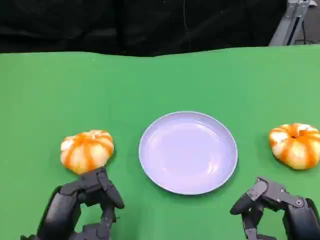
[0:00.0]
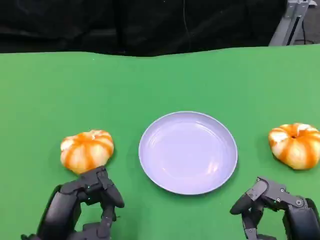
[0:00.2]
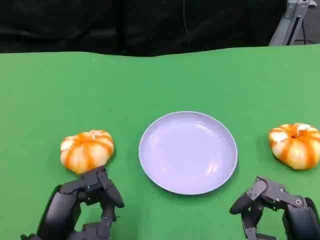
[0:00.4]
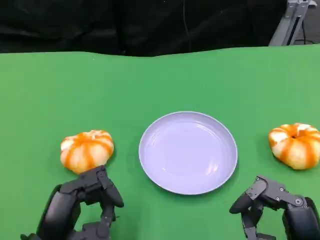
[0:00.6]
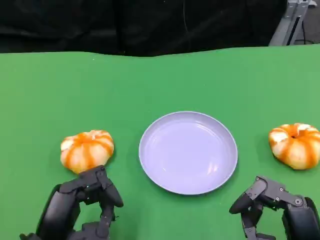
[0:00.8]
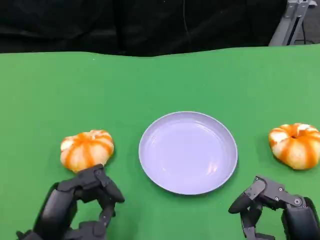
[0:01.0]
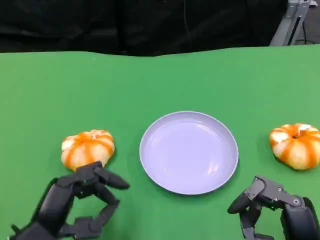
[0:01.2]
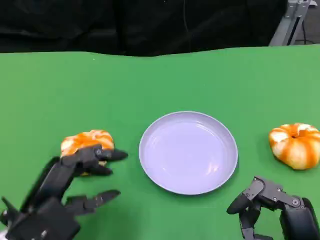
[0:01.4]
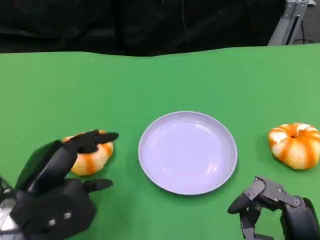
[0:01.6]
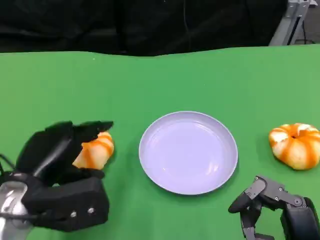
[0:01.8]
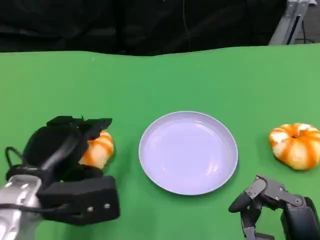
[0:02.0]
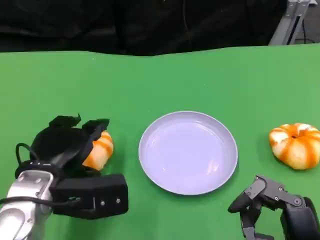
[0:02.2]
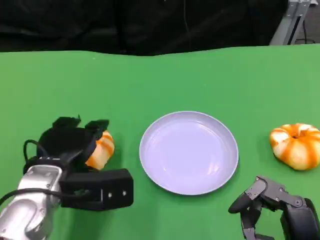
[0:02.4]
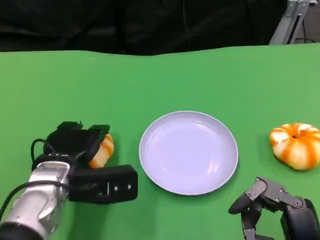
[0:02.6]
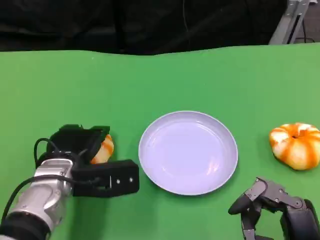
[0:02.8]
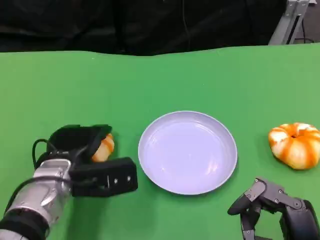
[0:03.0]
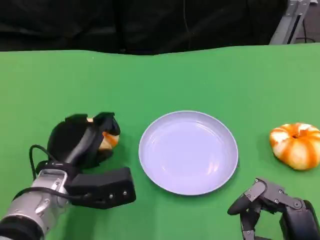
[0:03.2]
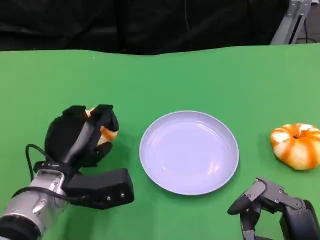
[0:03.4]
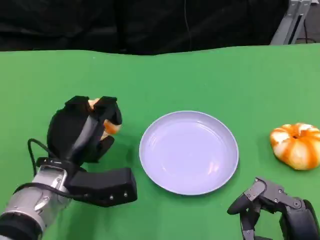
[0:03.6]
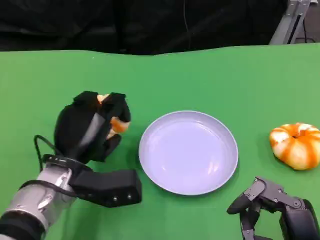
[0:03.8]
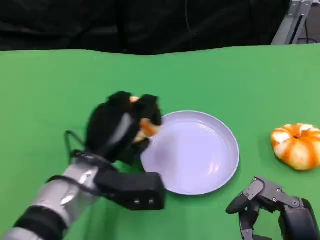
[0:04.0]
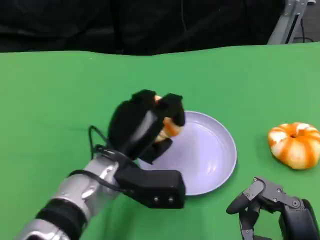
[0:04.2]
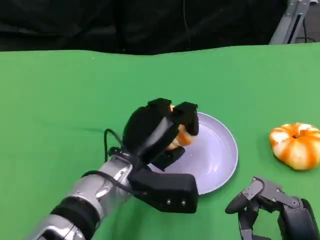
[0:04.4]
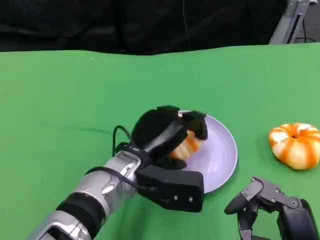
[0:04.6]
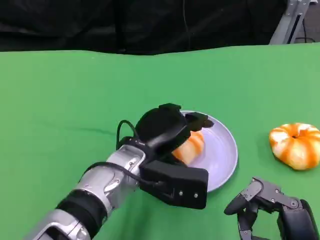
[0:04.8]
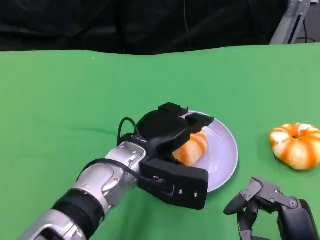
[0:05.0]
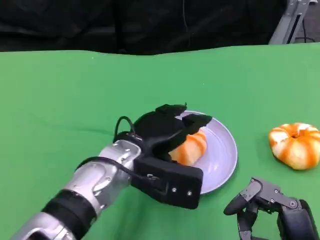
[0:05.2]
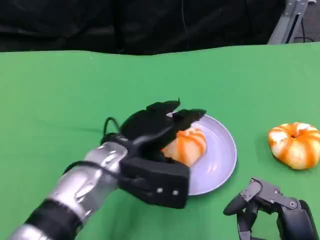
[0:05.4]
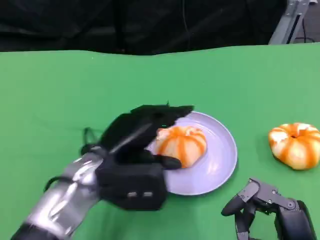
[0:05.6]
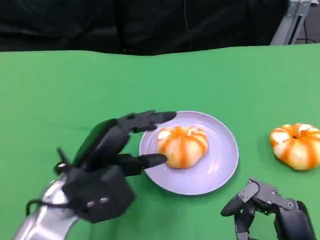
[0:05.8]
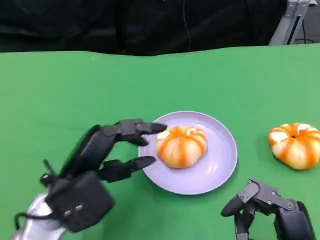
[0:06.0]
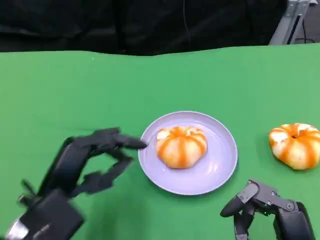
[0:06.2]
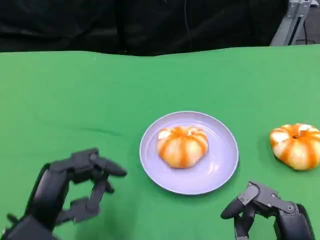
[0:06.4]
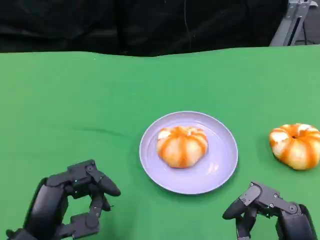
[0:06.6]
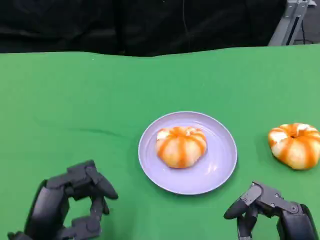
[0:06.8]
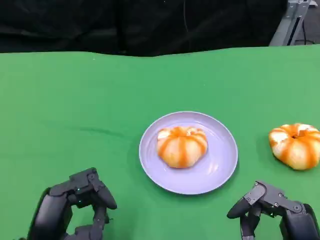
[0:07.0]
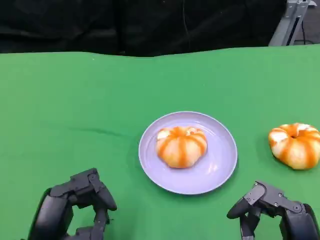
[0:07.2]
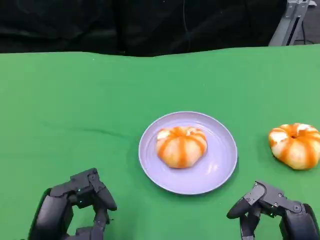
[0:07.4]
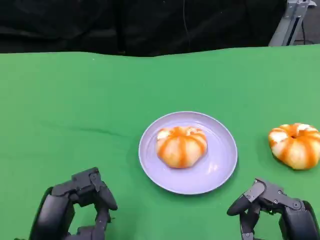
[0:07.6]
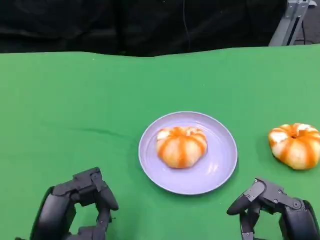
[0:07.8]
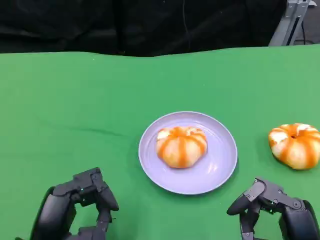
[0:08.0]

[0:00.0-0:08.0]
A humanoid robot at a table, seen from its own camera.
Task of the whole recording: Grasp the bread from the table and place it into the plate.
0:00.0 to 0:01.6: The left hand is displaced forward and upward by some 10 cm.
0:01.6 to 0:03.2: The left hand goes some 10 cm forward and downward.
0:03.2 to 0:04.8: The left hand is displaced to the right by about 10 cm.
0:04.8 to 0:06.4: The left hand is displaced to the left and backward by roughly 20 cm.
0:06.4 to 0:08.0: The hands move only a little.

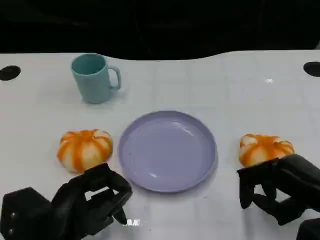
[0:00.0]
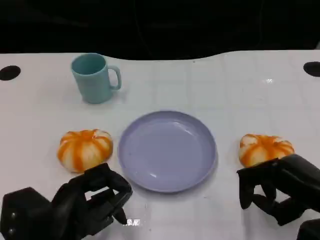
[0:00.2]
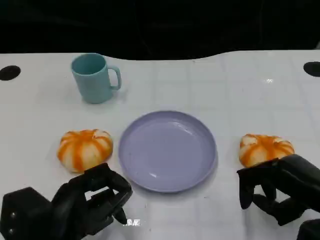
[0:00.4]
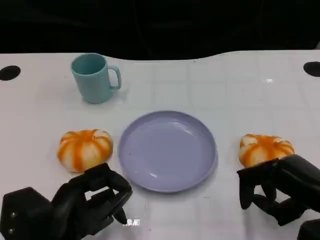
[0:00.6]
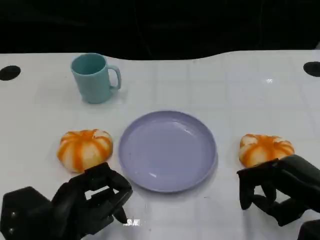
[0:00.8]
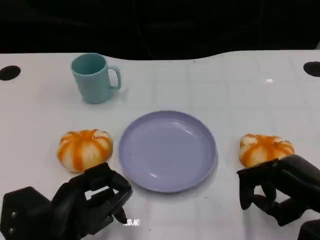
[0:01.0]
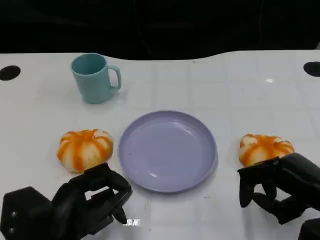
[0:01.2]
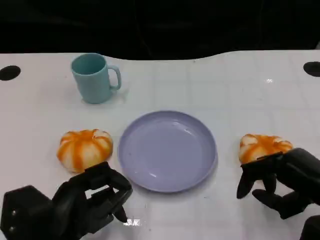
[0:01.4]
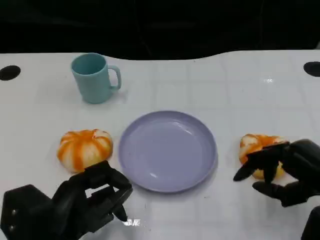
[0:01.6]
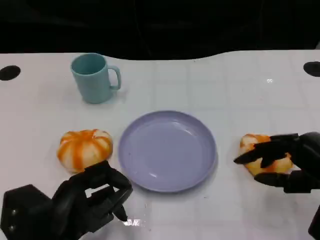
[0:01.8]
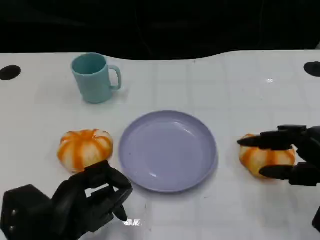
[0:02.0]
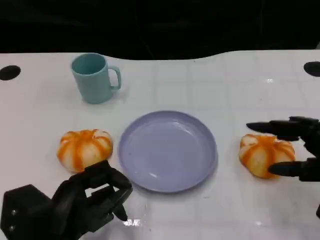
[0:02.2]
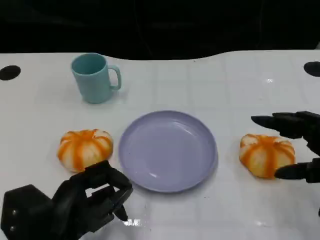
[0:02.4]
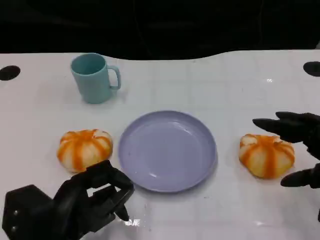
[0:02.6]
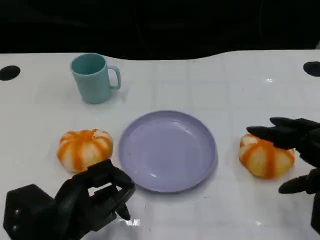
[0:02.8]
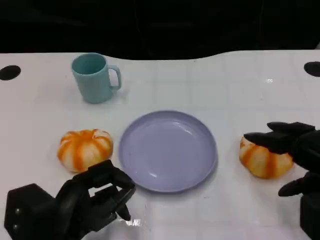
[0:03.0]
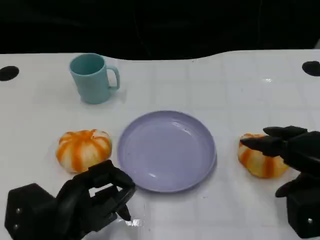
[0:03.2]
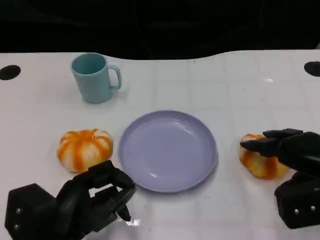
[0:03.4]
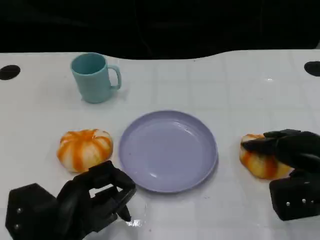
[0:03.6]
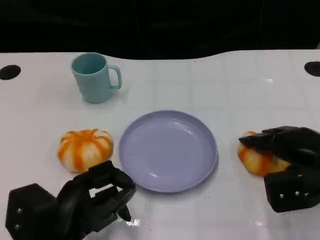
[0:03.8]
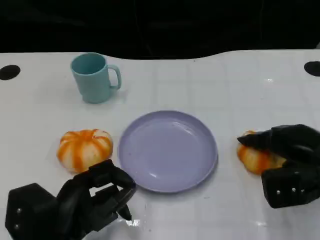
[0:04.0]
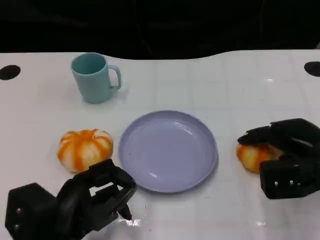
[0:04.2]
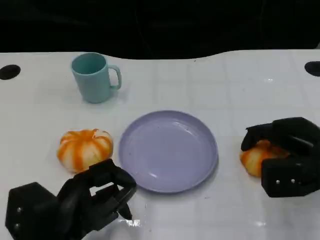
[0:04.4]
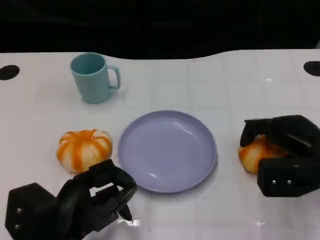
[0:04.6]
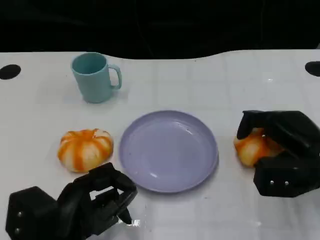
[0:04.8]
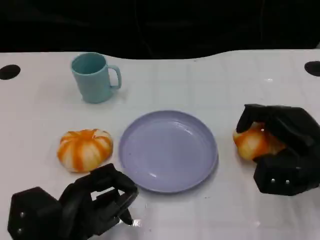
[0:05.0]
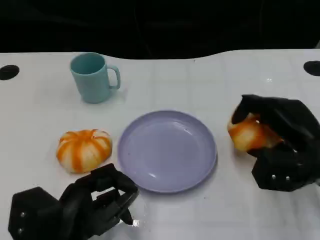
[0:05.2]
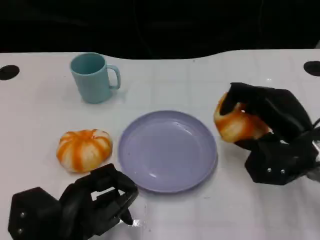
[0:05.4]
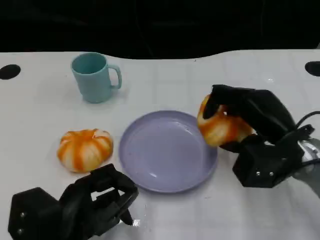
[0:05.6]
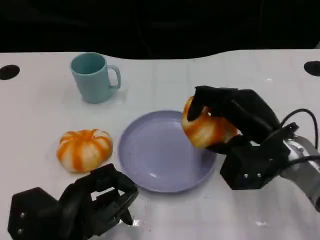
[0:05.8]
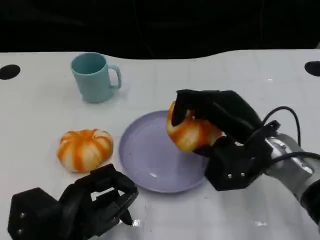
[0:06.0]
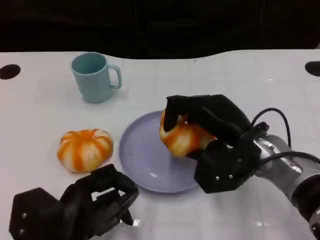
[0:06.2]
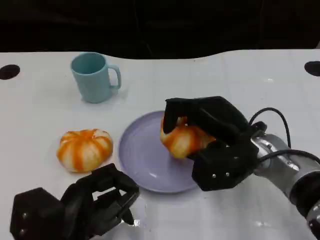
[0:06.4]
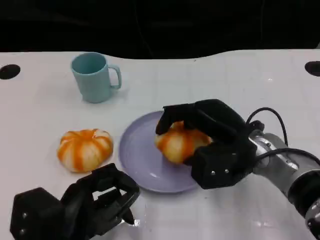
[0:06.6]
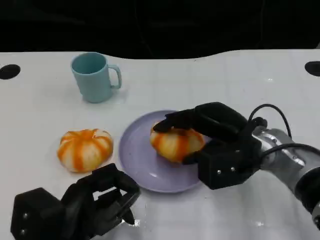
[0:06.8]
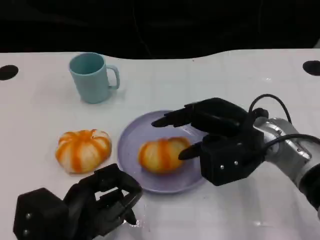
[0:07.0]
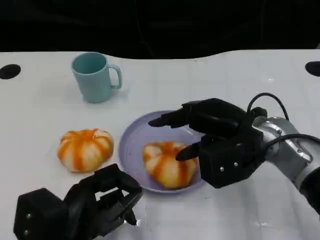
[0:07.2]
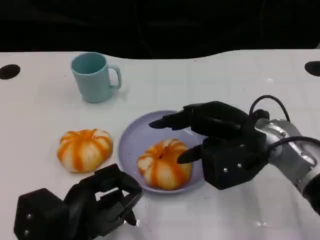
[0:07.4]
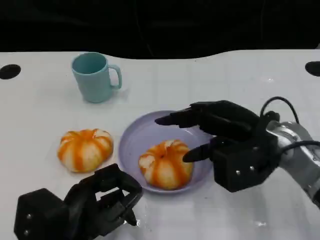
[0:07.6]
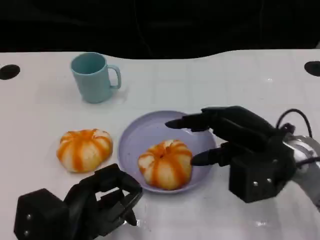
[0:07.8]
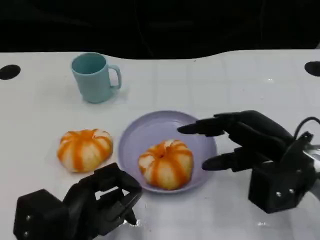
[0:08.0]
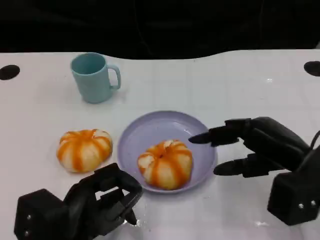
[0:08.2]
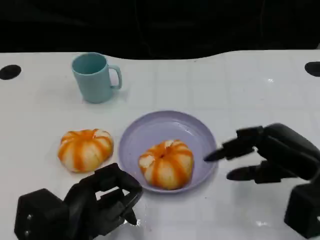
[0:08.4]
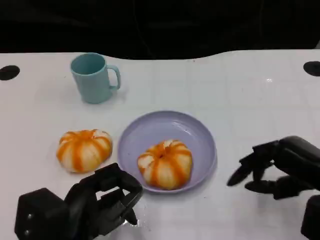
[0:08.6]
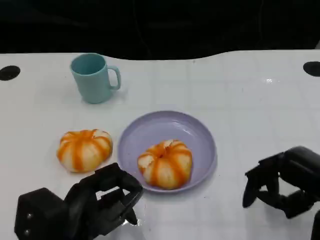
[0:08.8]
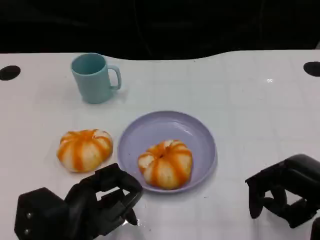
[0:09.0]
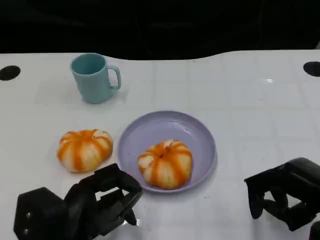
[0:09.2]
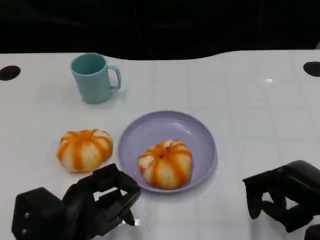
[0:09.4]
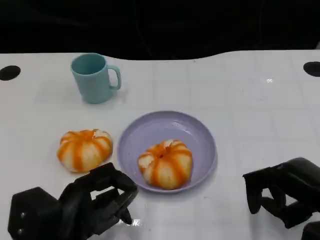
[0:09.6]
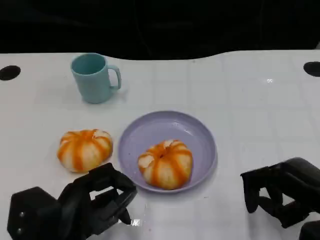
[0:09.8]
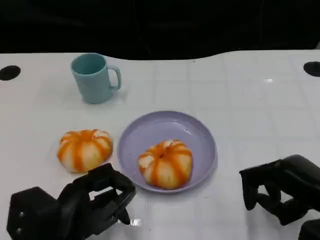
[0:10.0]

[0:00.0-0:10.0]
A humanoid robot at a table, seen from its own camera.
Task of the whole recording: Grasp the bread from the table and place it into the plate.
0:00.0 to 0:01.4: Both hands stay about where they are.
0:01.4 to 0:02.8: The right hand shifts by about 5 cm.
0:02.8 to 0:04.2: The right hand is displaced forward and downward by approximately 10 cm.
0:04.2 to 0:05.8: The right hand moves to the left, about 10 cm.
0:07.2 to 0:08.6: The right hand shifts about 15 cm to the right and backward.
0:08.6 to 0:10.0: The hands stay close to where they were, moving slightly.

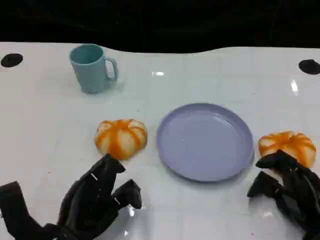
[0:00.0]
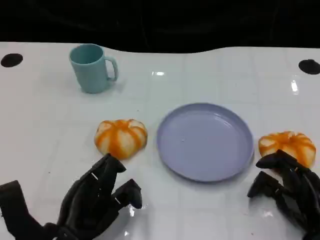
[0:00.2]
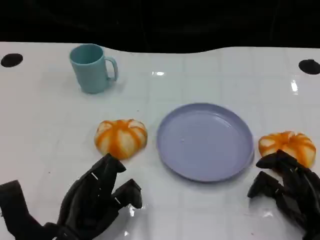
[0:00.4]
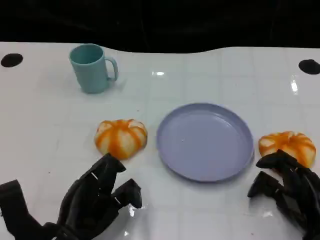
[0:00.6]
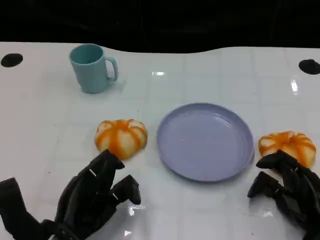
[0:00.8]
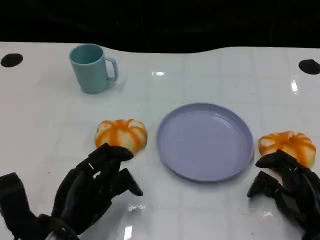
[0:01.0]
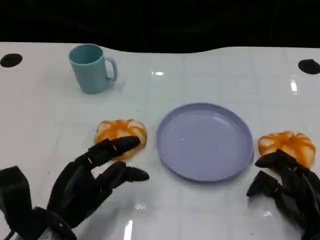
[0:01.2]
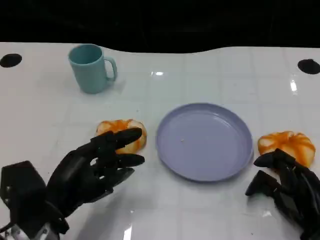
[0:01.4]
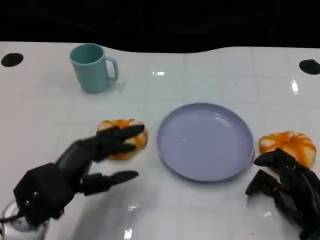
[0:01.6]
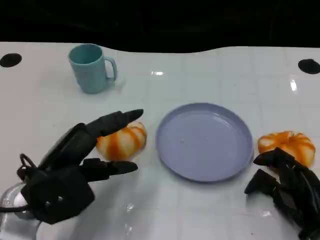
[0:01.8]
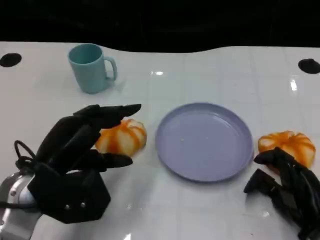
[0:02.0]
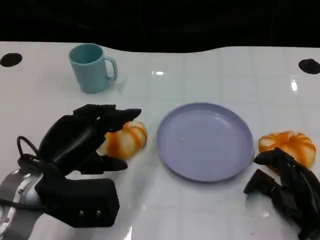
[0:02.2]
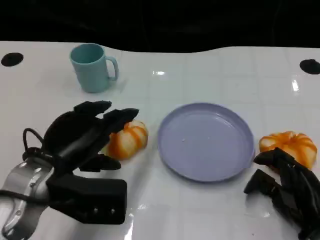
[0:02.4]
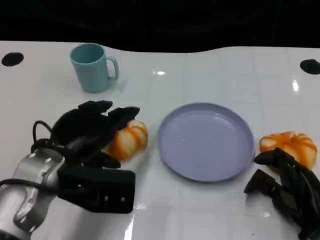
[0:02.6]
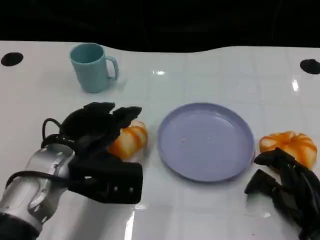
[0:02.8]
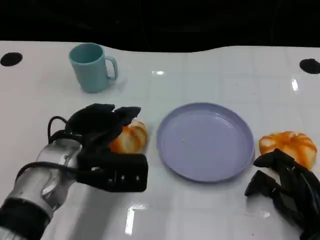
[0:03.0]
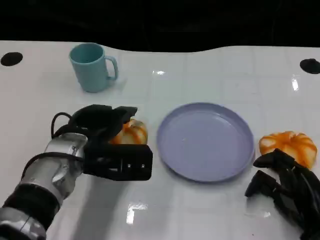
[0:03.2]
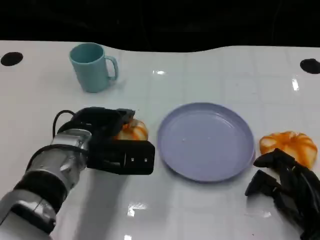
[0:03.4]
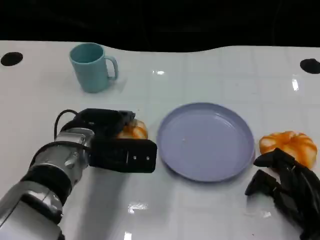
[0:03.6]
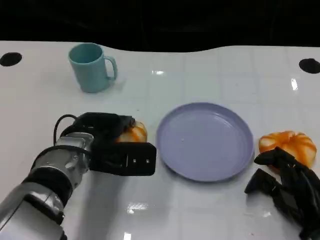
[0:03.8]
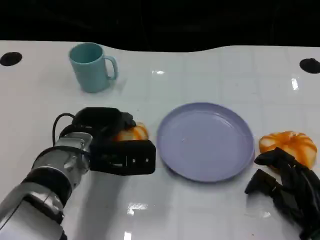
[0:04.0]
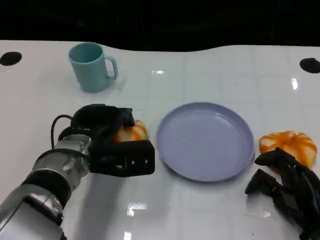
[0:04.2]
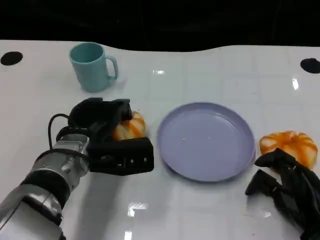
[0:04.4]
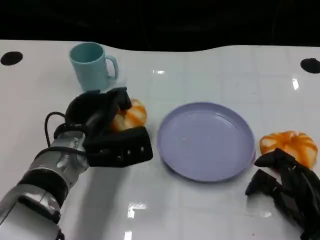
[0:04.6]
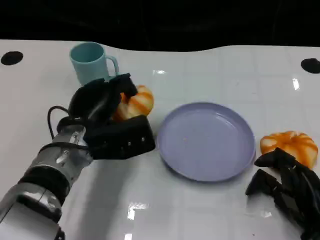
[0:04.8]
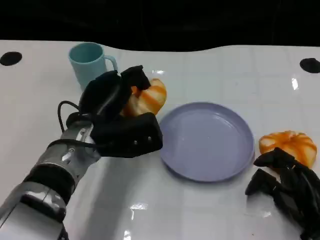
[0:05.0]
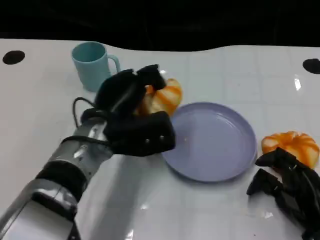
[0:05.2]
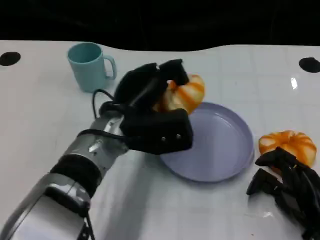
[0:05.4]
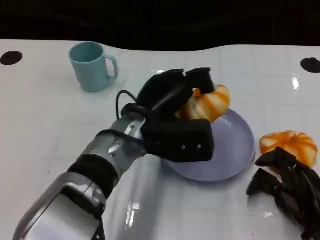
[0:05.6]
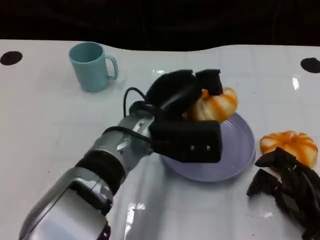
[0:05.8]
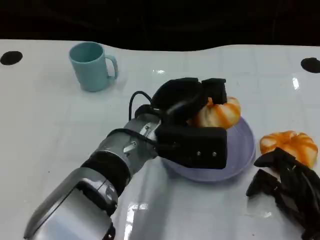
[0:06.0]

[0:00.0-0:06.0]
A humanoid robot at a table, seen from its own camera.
Task of the whole recording: Grasp the bread from the table and place it into the plate.
0:00.0 to 0:01.6: The left hand shifts some 5 cm upward.
0:01.6 to 0:03.0: The left hand is displaced forward and to the right by some 10 cm.
0:03.0 to 0:04.4: The hands make only small movements.
0:04.4 to 0:06.0: The left hand goes roughly 10 cm to the right.
